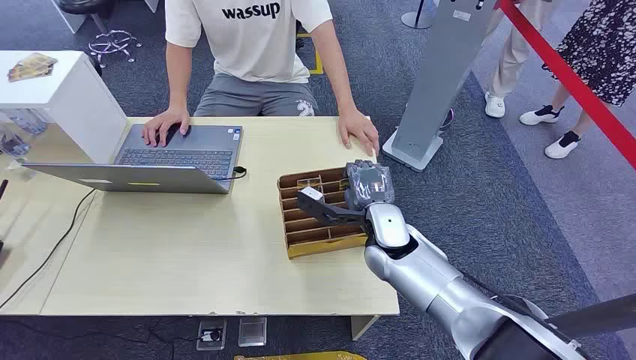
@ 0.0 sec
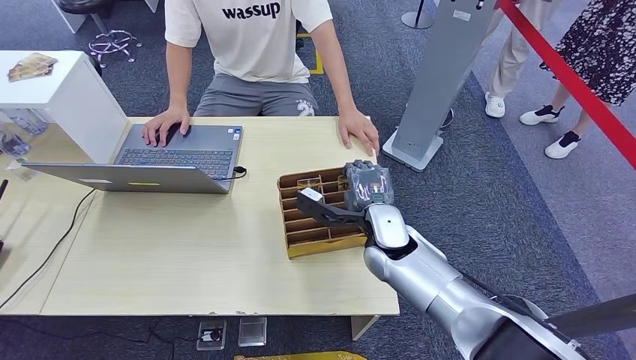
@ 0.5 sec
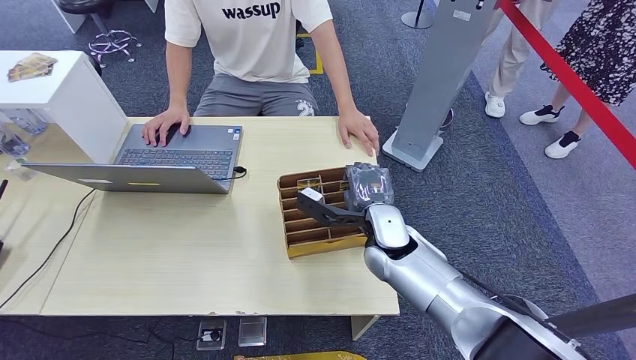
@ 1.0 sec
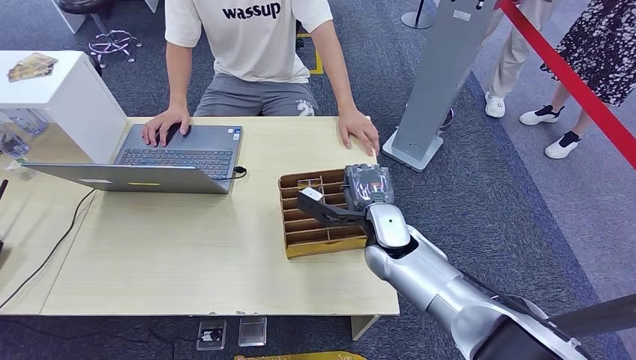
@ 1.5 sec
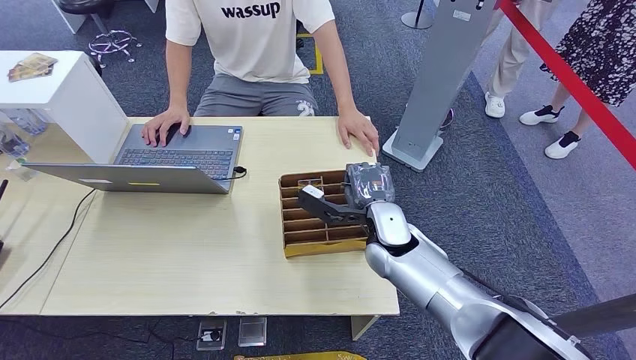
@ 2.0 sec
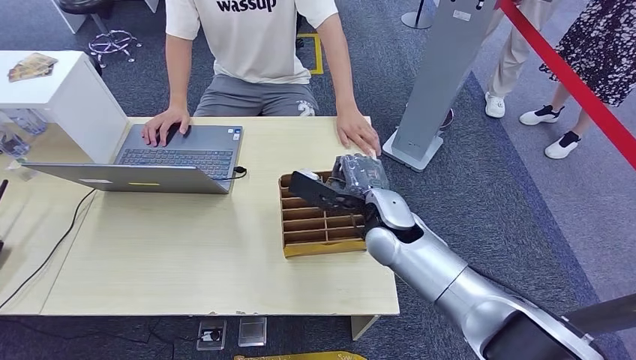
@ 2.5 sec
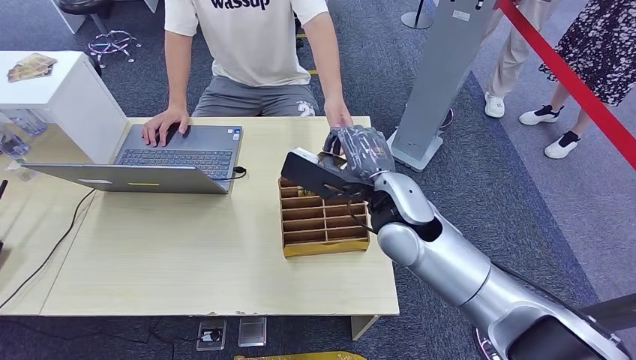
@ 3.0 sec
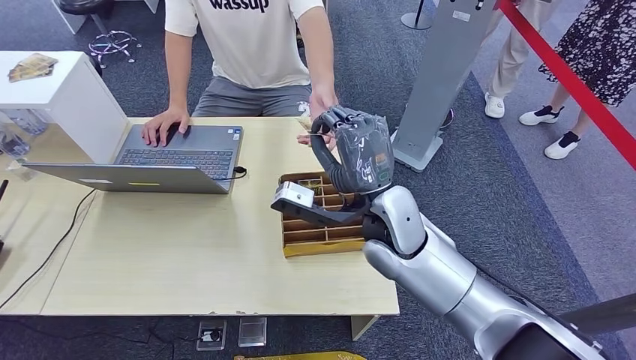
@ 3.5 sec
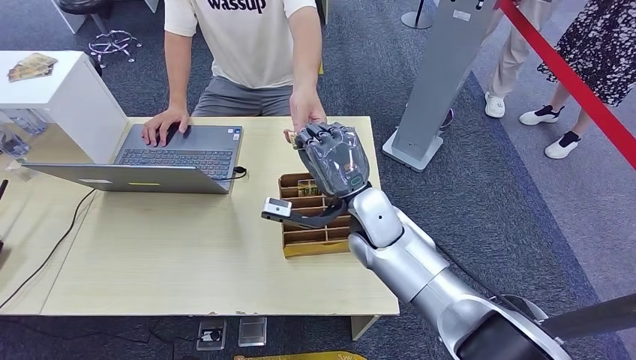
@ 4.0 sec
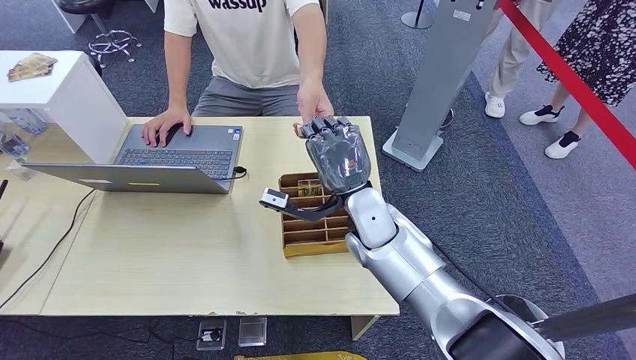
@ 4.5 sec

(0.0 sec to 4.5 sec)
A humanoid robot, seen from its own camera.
Step, 0.0 sec - 2.0 sec: Pick up the room card from the card holder.
Step, 3.5 sec - 4.5 sec: Hand the room card to the target.
